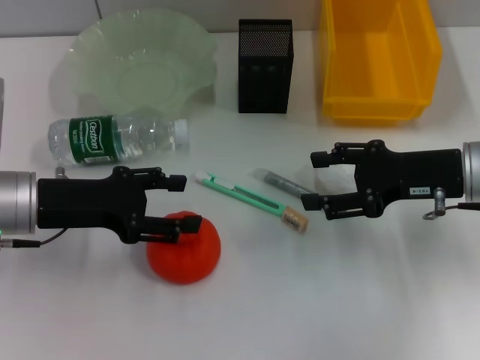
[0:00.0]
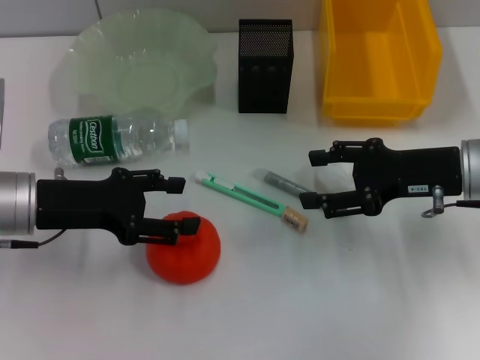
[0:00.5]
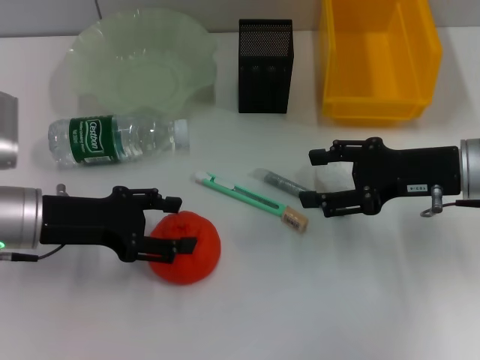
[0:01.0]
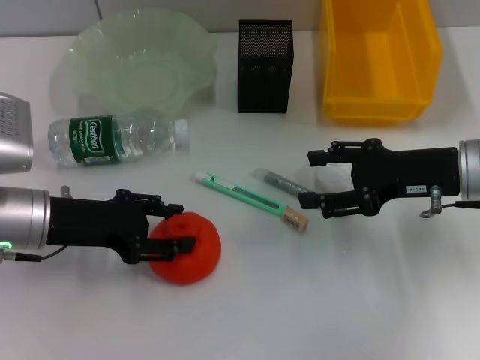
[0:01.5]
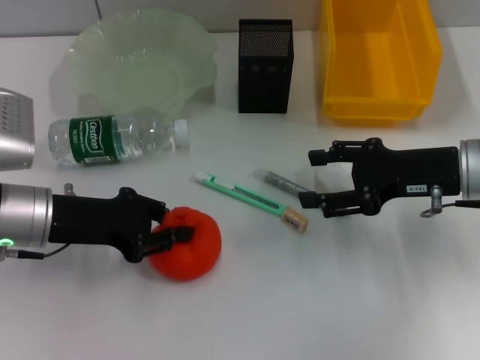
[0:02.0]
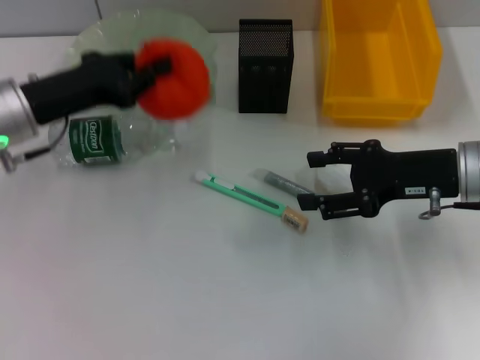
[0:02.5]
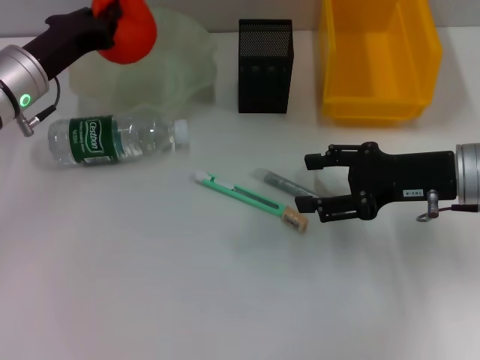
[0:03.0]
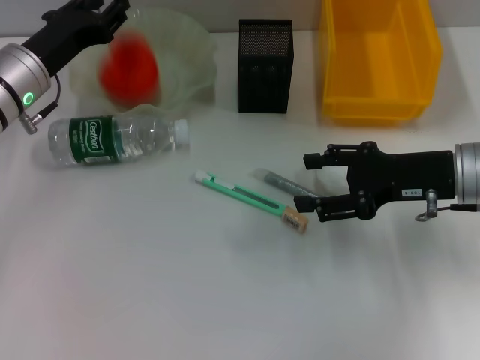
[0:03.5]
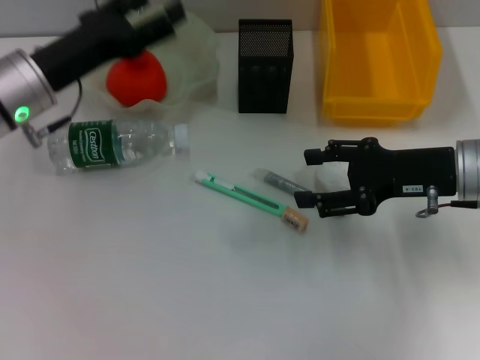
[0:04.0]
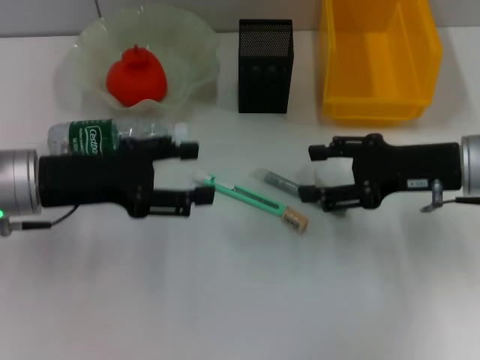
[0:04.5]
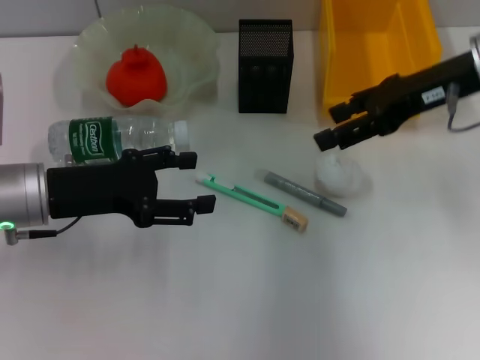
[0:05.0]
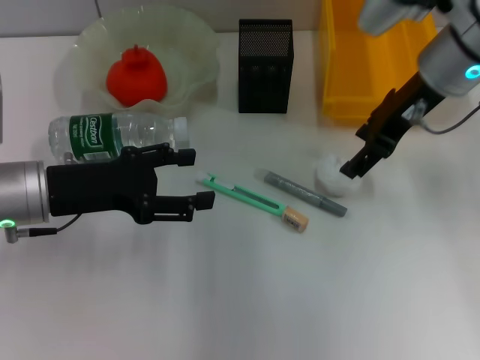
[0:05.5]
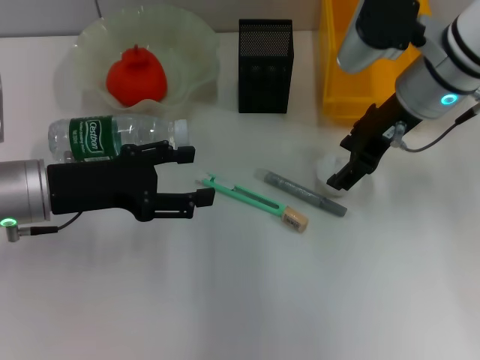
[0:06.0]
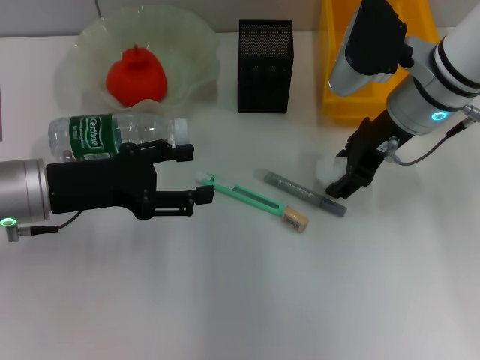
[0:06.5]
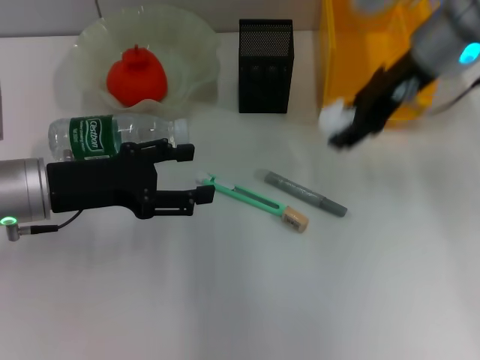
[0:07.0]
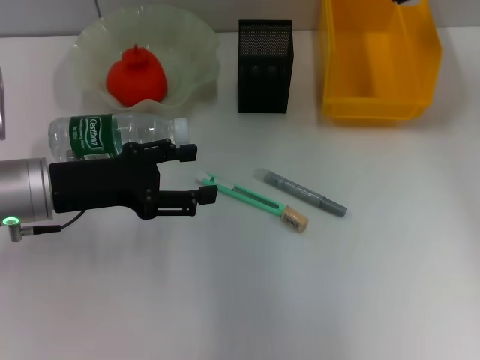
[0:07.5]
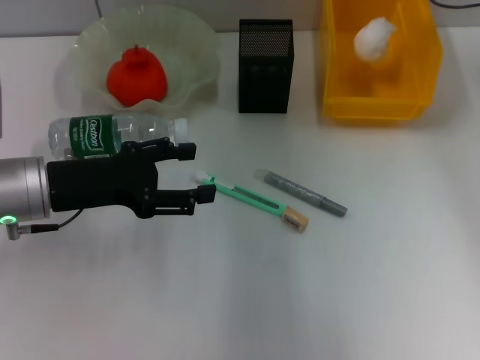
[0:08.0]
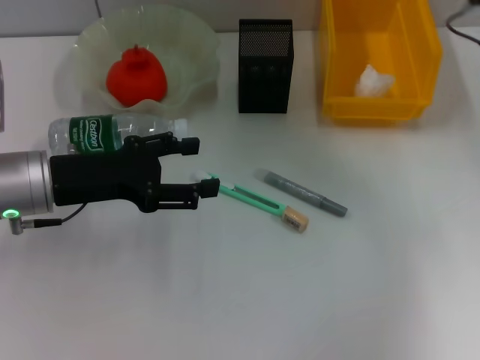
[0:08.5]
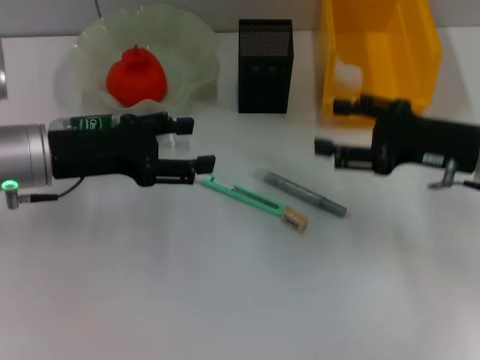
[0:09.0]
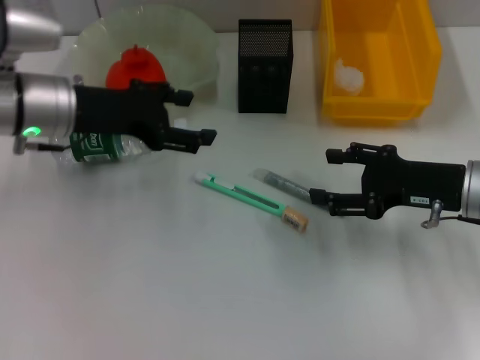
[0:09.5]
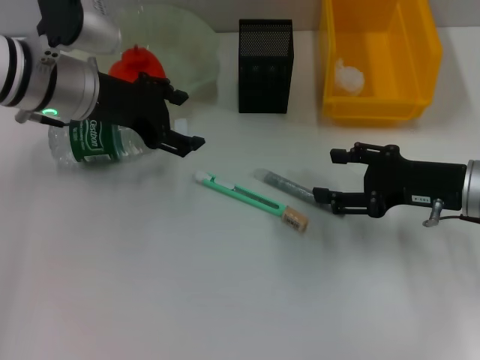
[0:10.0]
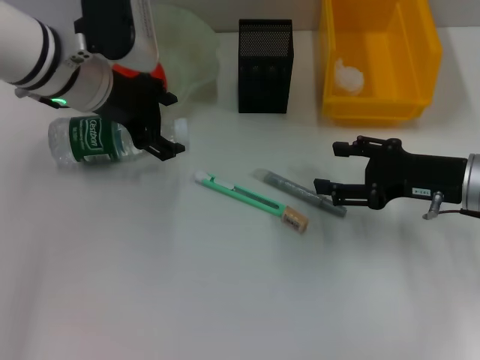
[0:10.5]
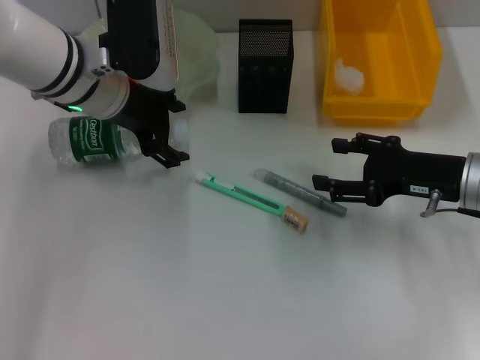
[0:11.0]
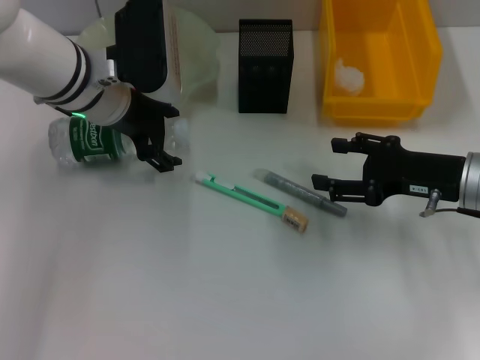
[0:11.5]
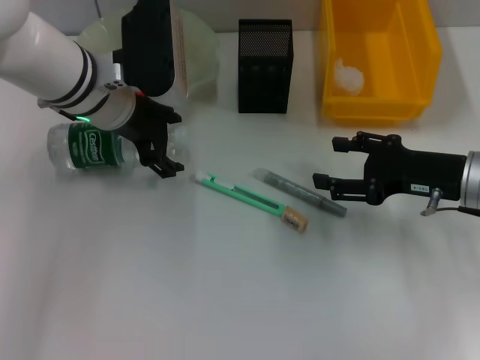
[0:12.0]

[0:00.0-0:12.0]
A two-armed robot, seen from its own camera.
Step, 0:00.0 to 0:01.5: Grab the orange with the left hand.
Step, 0:02.0 to 0:03.5: Place the orange into the fruit bowl with the left hand.
Step, 0:04.0 to 0:06.5: Grab the paper ball with the right hand.
Step, 0:07.0 to 0:08.0: Place the paper ball into the trash can with the right hand.
0:00.0 to 0:02.0: The left gripper closes up.
0:02.0 to 0:04.0: The left gripper travels forward by roughly 5 cm, and opens.
0:04.0 to 0:06.0: The right gripper is displaced forward, to the left and upward by approximately 10 cm; the left gripper shifts about 5 cm backward.
0:06.0 to 0:08.0: The right gripper heads forward, upward and to the right, covering roughly 10 cm.
0:08.0 to 0:10.0: The right gripper heads downward and backward, covering approximately 20 cm. Meanwhile the left gripper travels forward and upward by roughly 10 cm.

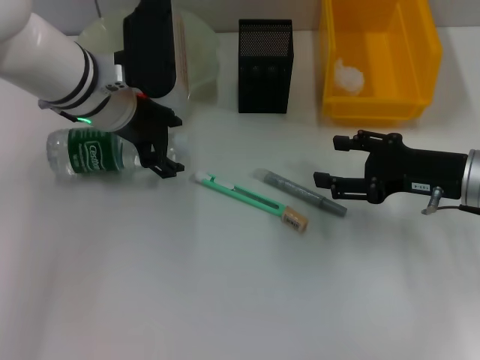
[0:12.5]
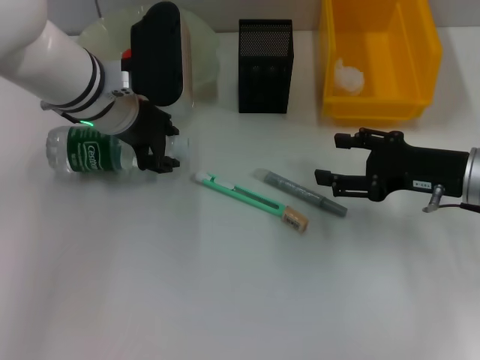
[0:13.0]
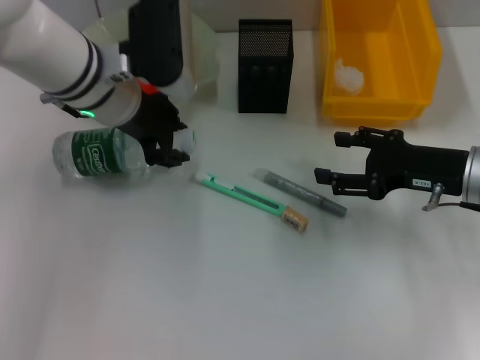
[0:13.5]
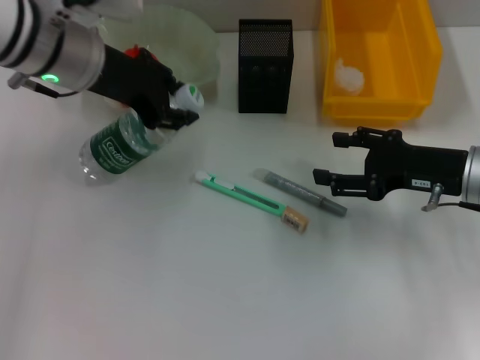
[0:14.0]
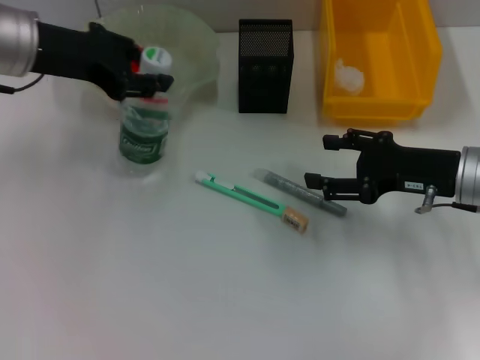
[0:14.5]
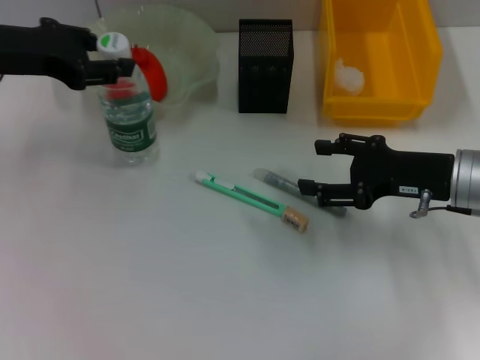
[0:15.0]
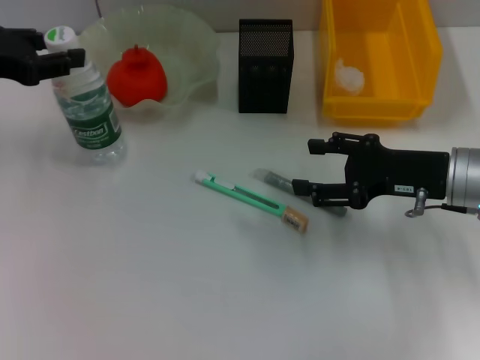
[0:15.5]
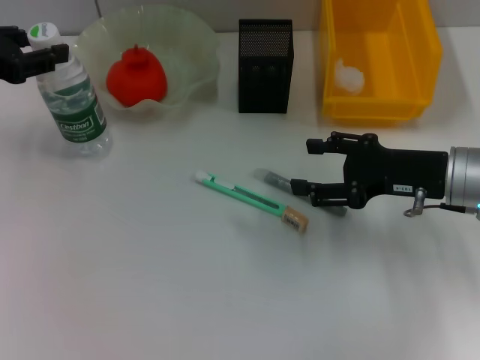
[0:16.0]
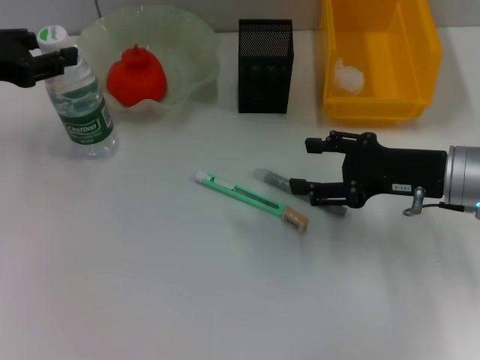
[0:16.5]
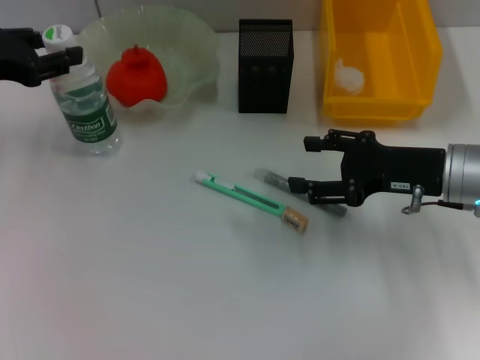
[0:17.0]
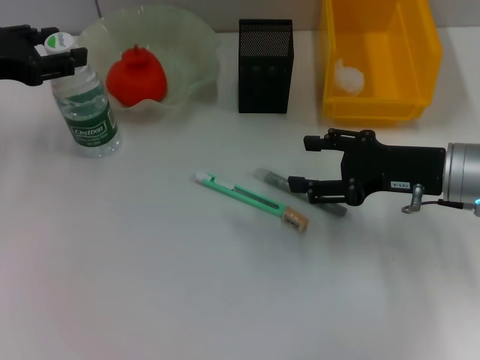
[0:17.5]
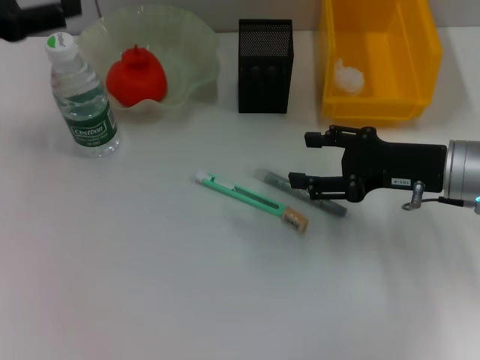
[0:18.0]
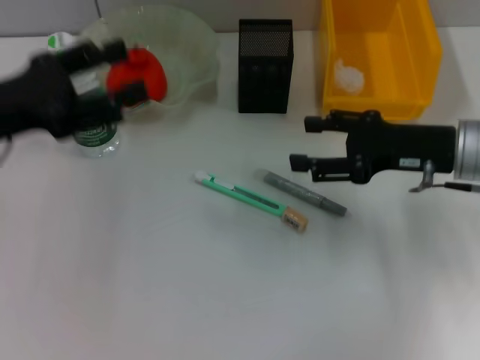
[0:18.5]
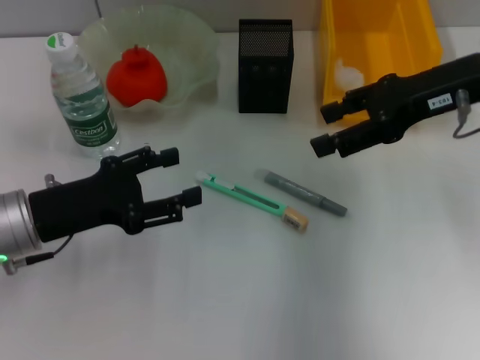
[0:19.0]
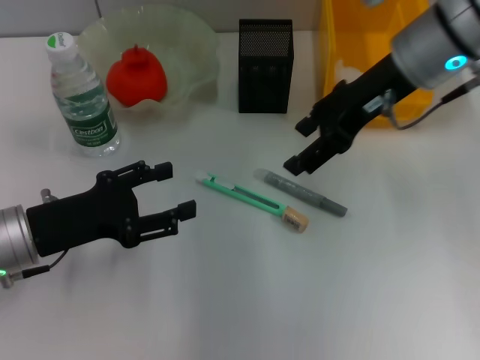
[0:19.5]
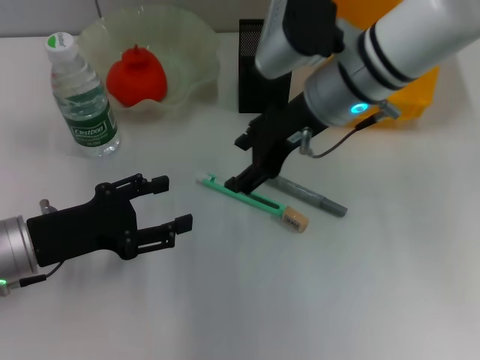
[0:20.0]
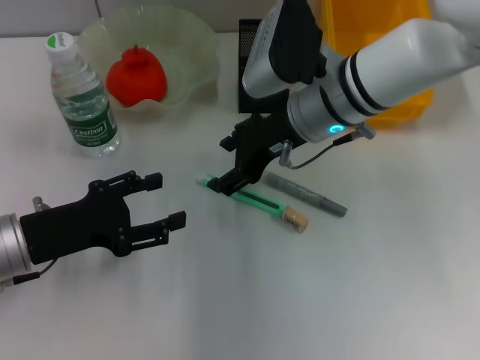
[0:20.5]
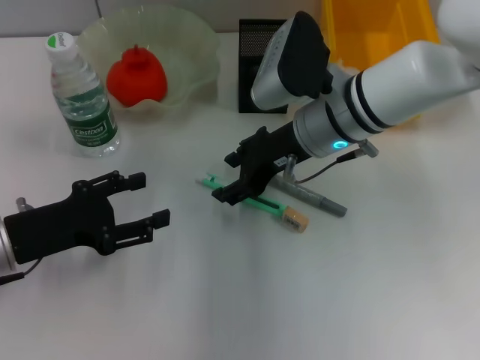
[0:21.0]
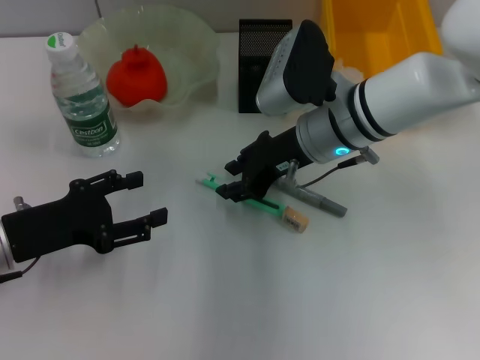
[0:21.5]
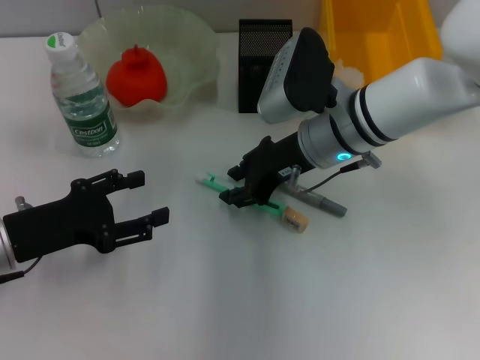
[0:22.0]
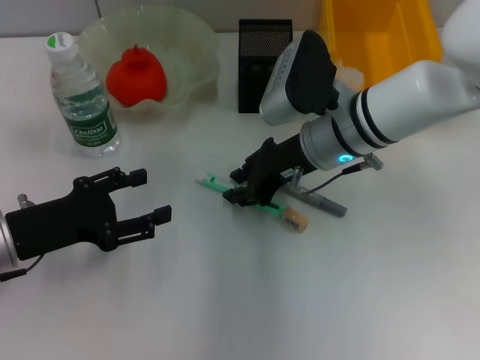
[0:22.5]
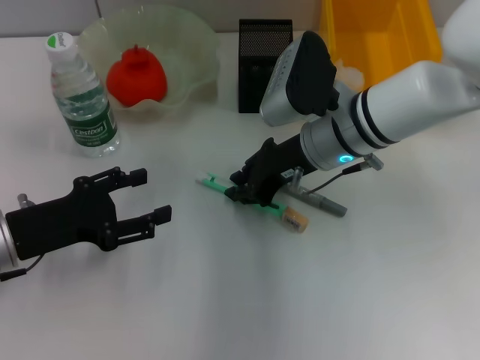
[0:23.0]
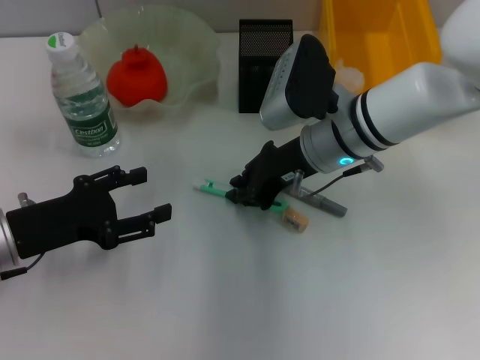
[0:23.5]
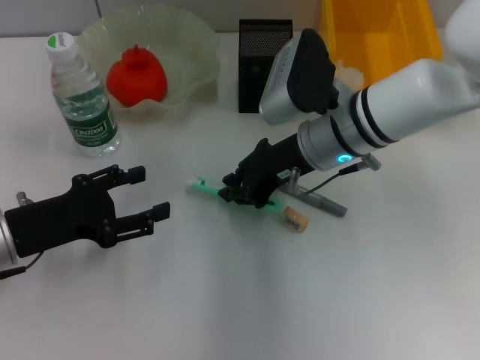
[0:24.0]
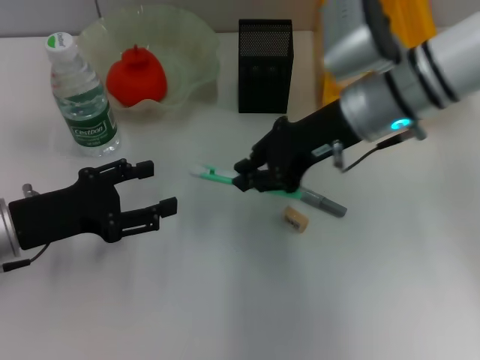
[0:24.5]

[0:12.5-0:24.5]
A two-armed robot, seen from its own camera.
Step, 0:13.5 to 0:18.0: Place the water bottle on the table with the left hand.
Step, 0:18.5 to 0:23.5: Grab the blue utility knife with the right hand.
0:12.5 to 0:14.5: The left gripper shifts roughly 10 cm to the left and upward, and closes its fingers.
0:14.5 to 0:16.5: The left gripper goes some 10 cm to the left.
0:16.5 to 0:18.5: The left gripper travels backward by approximately 5 cm, and opens.
0:18.5 to 0:20.5: The right gripper heads to the left, covering some 15 cm. Meanwhile the left gripper travels downward by roughly 10 cm.
0:20.5 to 0:22.5: The right gripper closes its fingers.
0:22.5 to 0:24.5: The right gripper moves upward, about 5 cm.

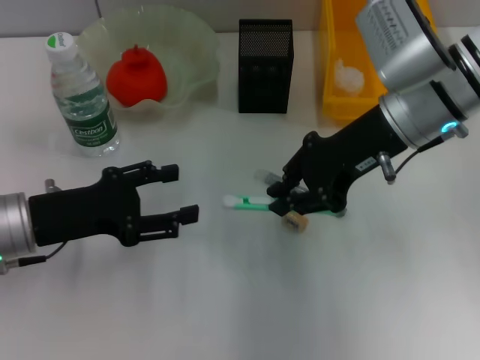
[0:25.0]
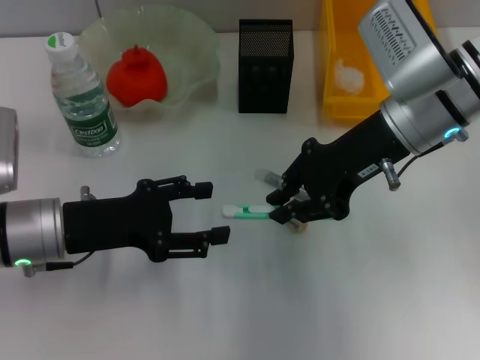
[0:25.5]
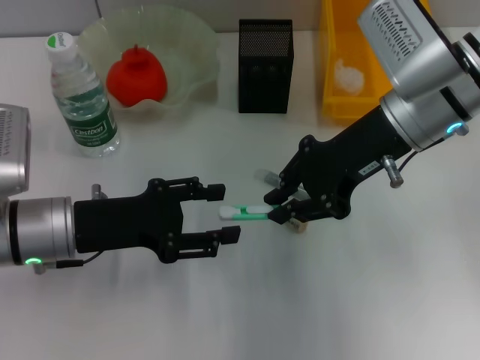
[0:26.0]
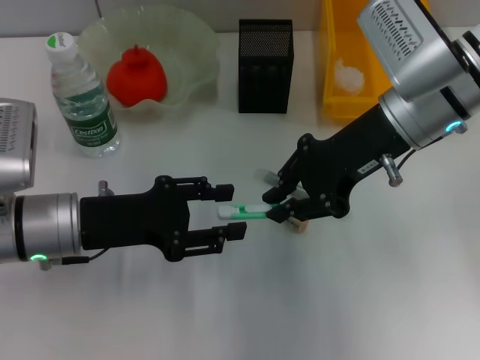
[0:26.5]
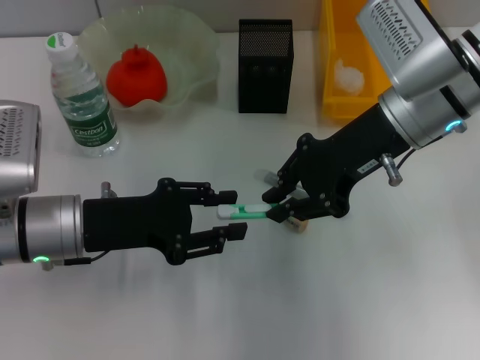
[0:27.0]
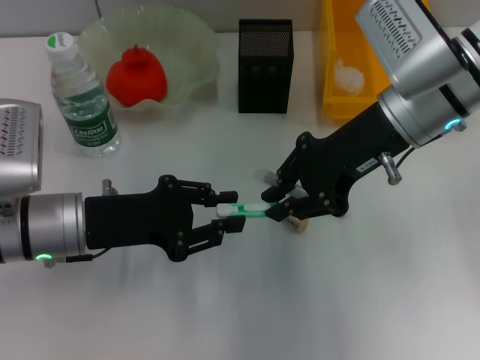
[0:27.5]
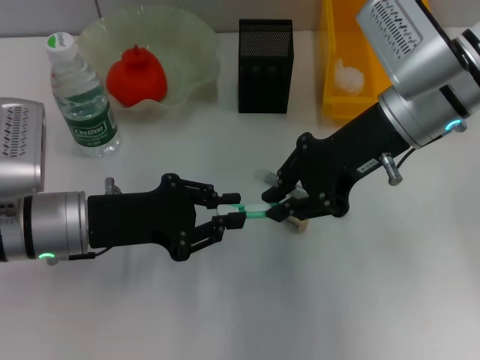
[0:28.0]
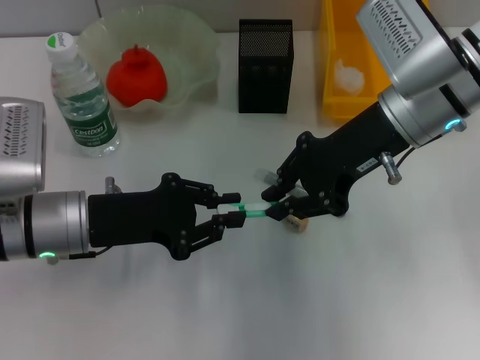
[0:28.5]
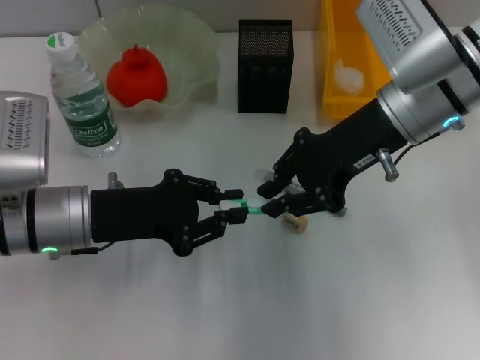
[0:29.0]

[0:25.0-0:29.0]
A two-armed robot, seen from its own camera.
0:25.0 to 0:27.0: The left gripper closes its fingers.
0:27.0 to 0:29.0: The left gripper closes.
